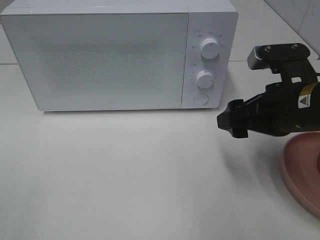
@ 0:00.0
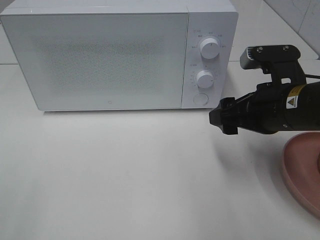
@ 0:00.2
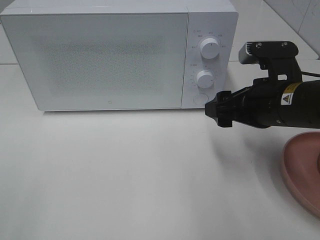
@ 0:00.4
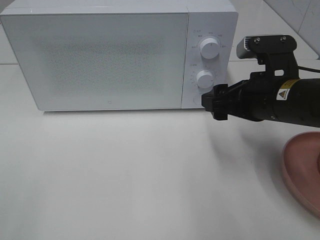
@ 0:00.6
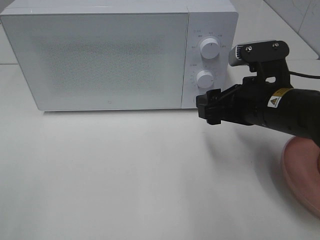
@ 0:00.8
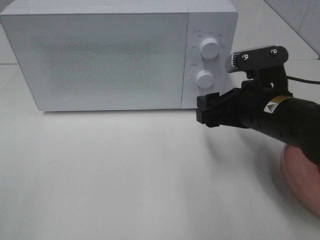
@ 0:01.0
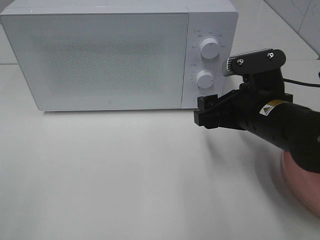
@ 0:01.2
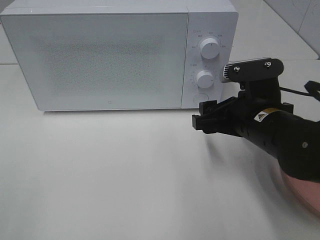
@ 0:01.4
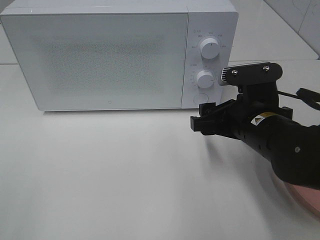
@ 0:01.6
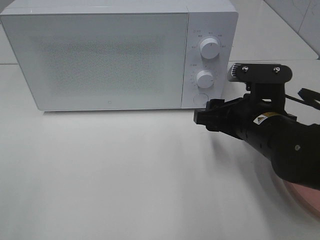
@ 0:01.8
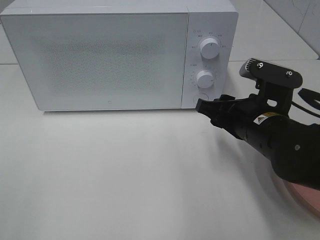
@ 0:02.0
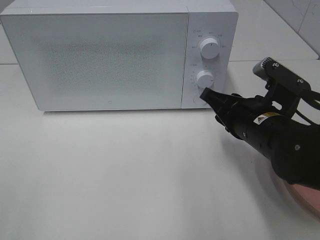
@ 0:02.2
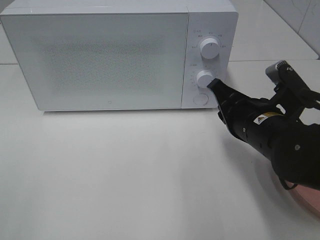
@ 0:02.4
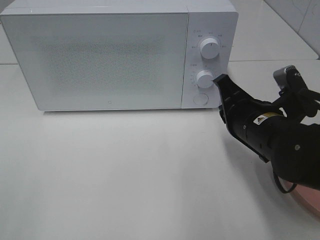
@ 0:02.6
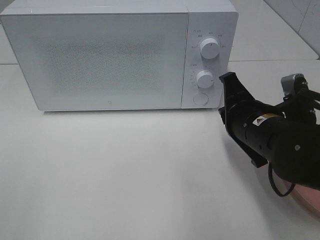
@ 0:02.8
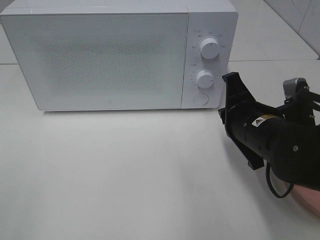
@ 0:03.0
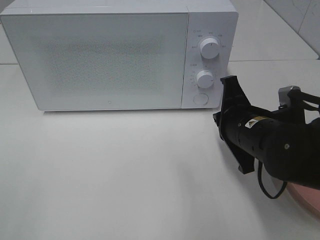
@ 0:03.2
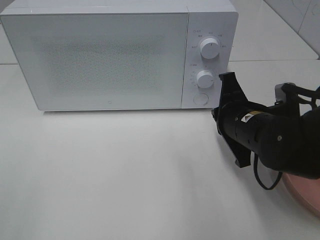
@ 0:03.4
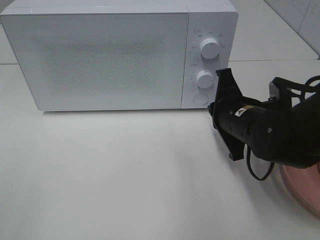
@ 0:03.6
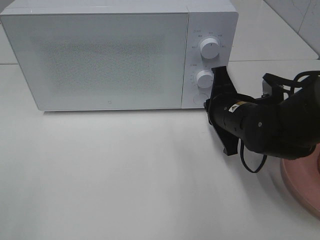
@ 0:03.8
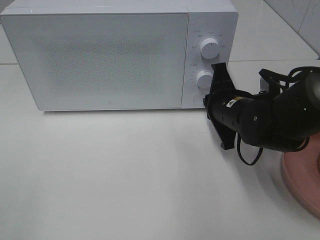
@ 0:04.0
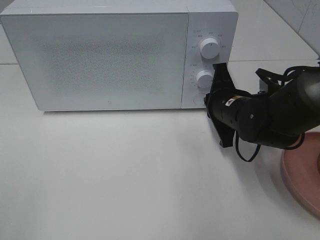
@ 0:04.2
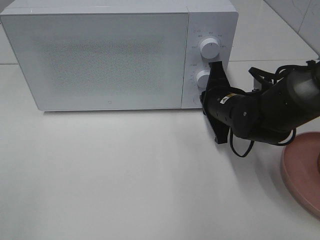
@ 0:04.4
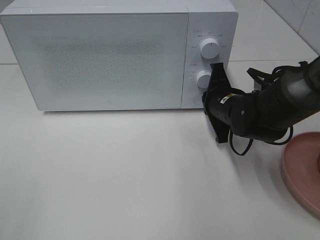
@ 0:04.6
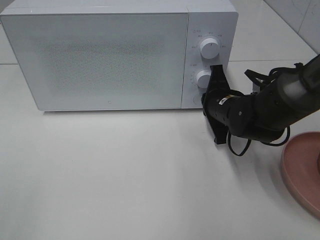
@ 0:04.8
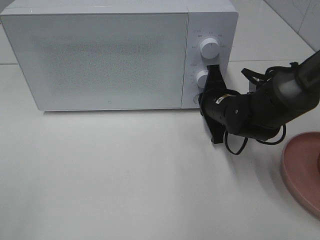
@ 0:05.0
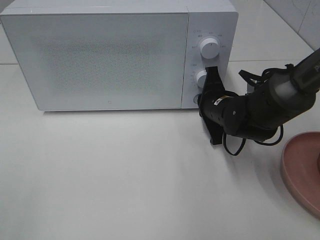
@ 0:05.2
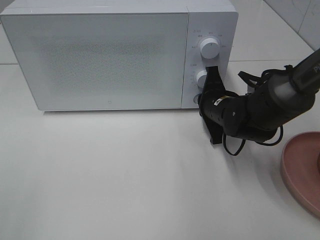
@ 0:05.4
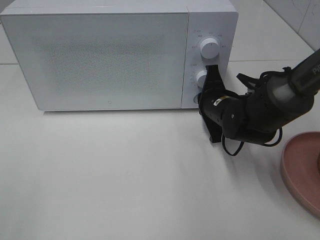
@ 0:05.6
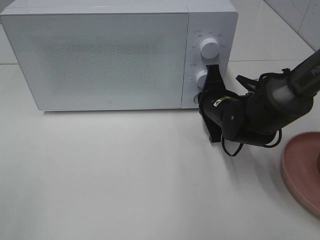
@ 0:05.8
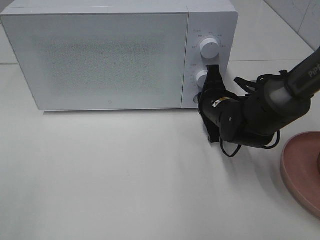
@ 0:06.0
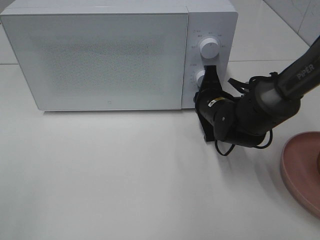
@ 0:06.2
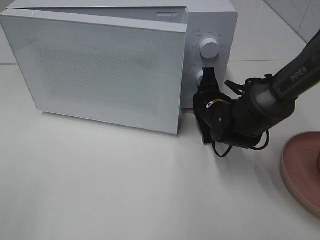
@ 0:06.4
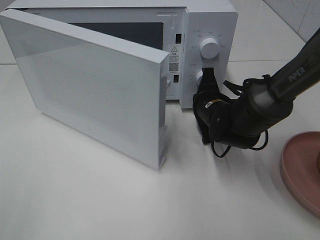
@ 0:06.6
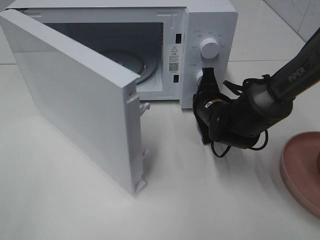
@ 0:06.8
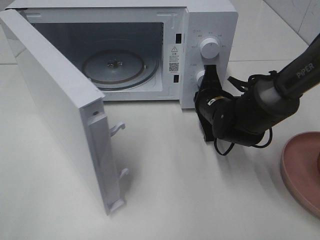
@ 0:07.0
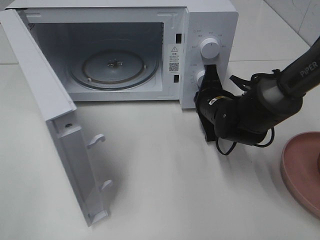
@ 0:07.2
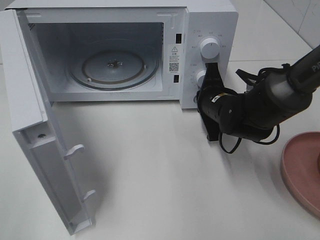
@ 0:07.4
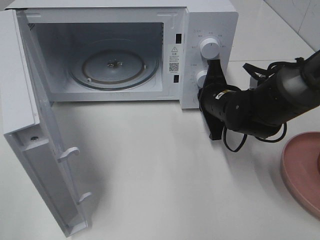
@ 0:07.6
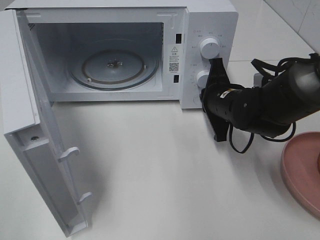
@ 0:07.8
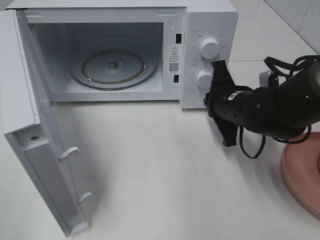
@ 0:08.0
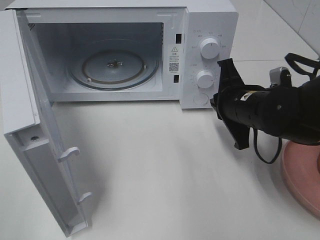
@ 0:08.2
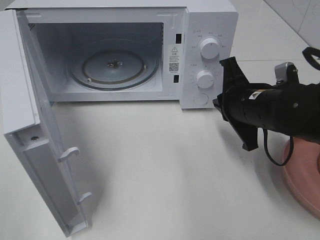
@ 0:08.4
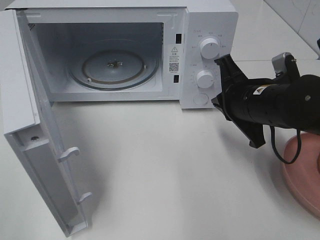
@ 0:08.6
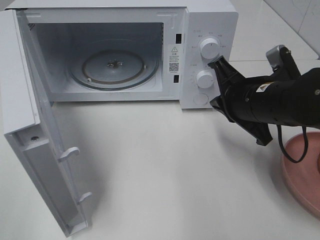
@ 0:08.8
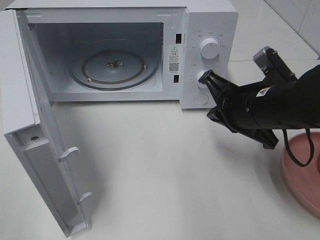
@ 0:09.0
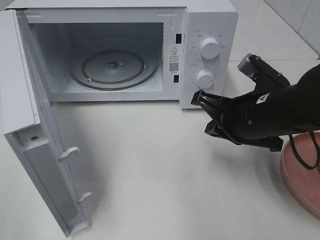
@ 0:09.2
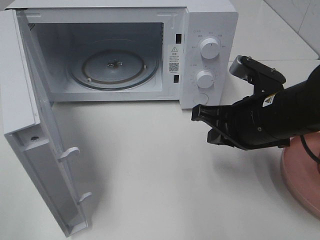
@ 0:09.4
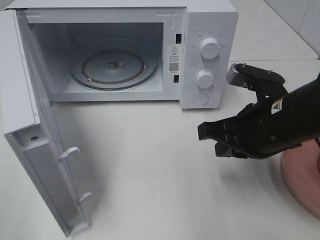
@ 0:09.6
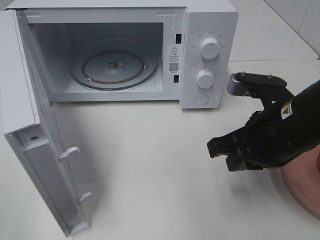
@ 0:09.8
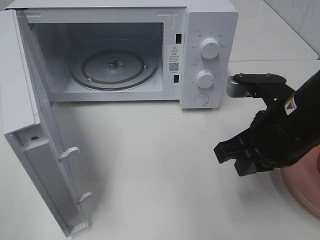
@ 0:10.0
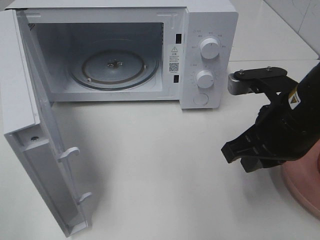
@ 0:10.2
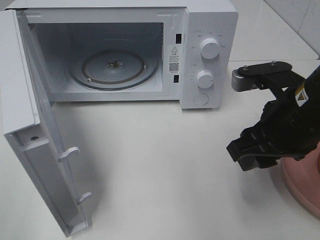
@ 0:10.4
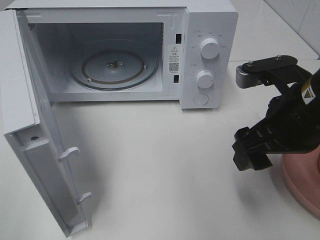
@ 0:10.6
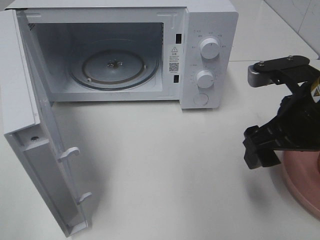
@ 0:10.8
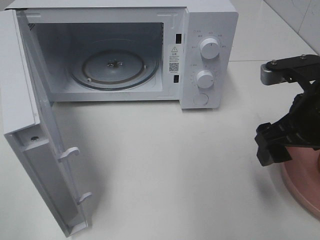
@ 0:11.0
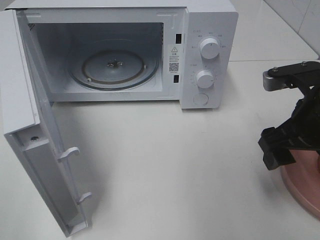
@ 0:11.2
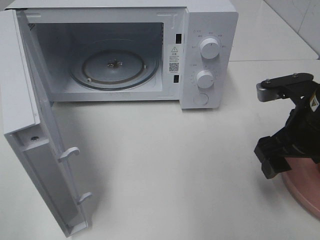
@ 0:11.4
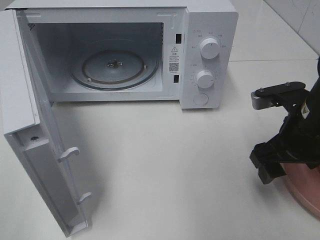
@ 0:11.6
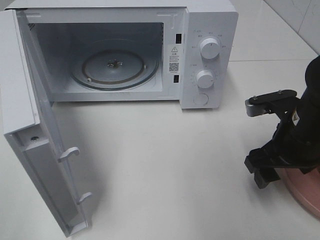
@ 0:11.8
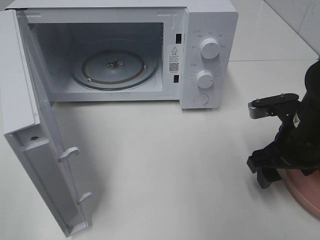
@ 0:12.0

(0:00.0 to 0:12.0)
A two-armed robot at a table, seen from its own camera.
Task of the whole recording: Heat the burger.
Step, 0:00.0 - 0:07.8: Right hand: press the switch.
0:00.0 - 0:01.6: The right gripper shifts by roughly 5 cm.
0:01.6 - 0:03.0: The right gripper closes its fingers.
0:03.0 - 0:04.4: The right gripper heads forward, covering approximately 10 cm.
0:04.4 - 0:06.0: The grippers make only small movements.
0:07.6 - 0:09.0: The right gripper heads backward and upward, covering approximately 10 cm.
0:09.0 - 0:10.4: The right gripper ends up some 5 cm from where it was, and opens up.
0:10.4 - 0:12.0: The right gripper moves downward, approximately 5 cm.

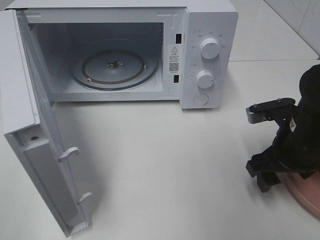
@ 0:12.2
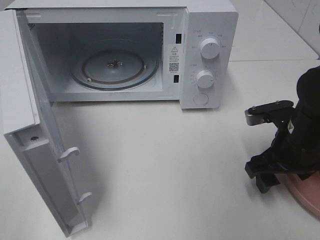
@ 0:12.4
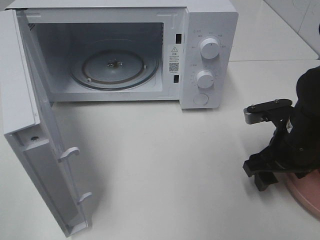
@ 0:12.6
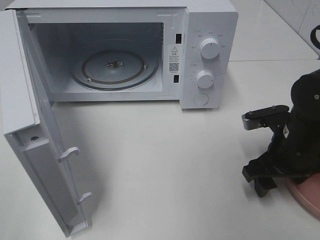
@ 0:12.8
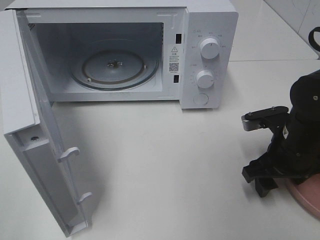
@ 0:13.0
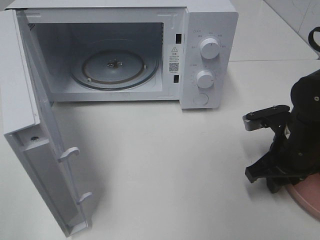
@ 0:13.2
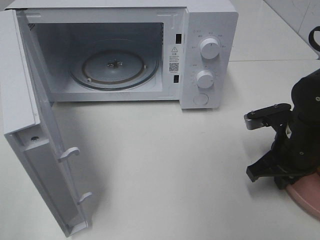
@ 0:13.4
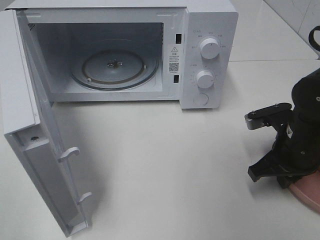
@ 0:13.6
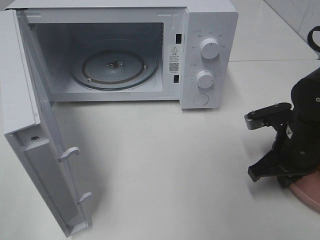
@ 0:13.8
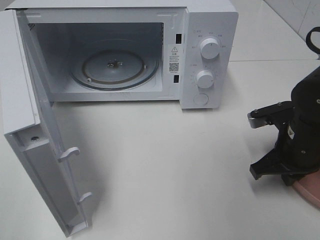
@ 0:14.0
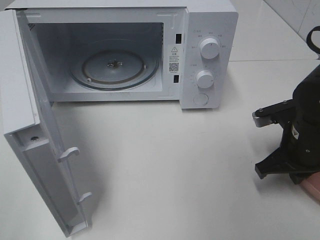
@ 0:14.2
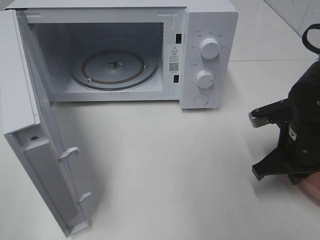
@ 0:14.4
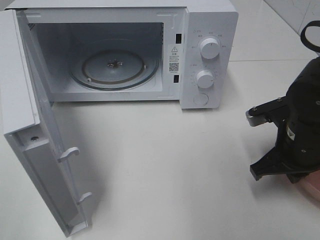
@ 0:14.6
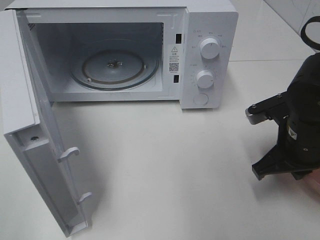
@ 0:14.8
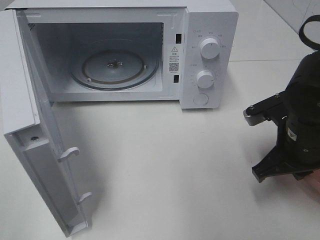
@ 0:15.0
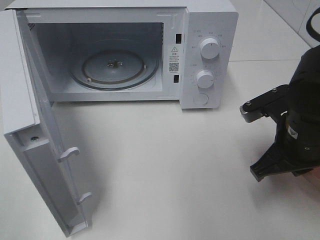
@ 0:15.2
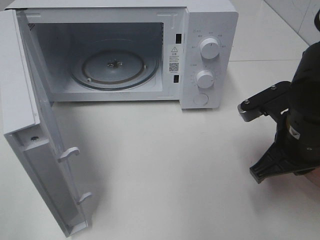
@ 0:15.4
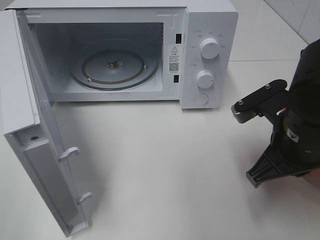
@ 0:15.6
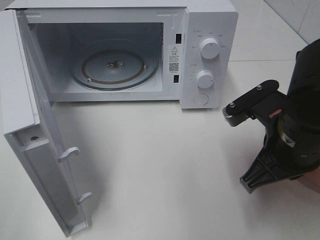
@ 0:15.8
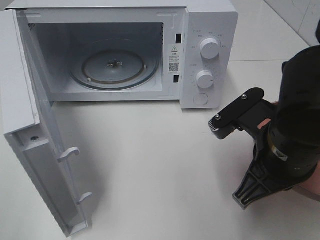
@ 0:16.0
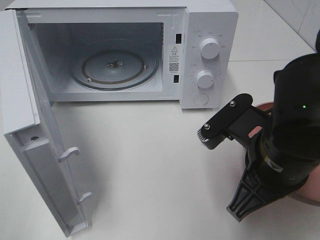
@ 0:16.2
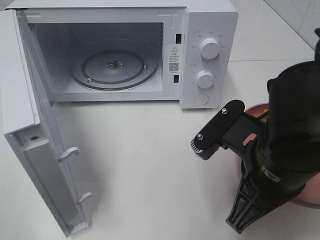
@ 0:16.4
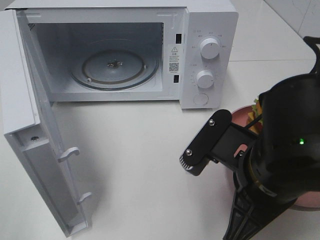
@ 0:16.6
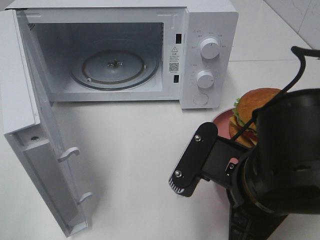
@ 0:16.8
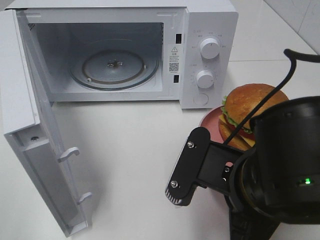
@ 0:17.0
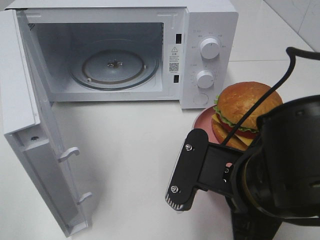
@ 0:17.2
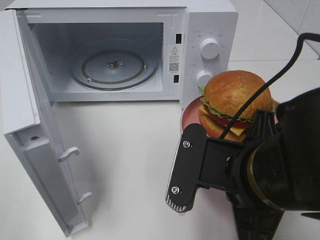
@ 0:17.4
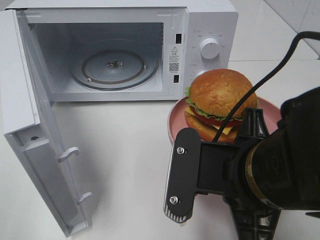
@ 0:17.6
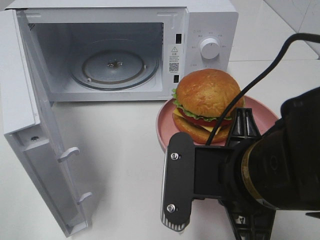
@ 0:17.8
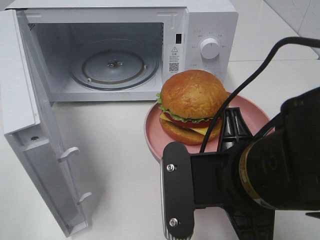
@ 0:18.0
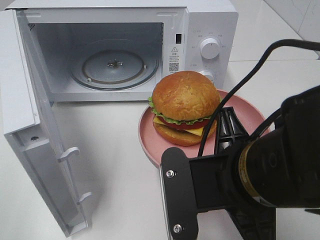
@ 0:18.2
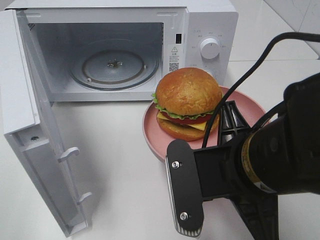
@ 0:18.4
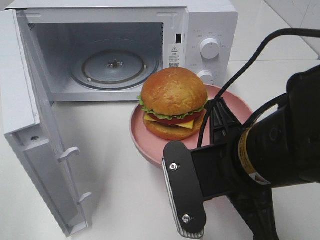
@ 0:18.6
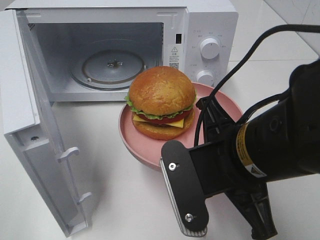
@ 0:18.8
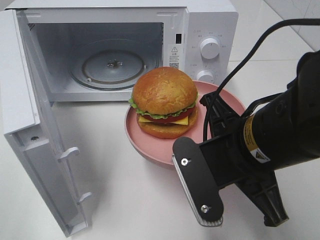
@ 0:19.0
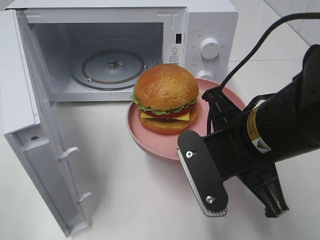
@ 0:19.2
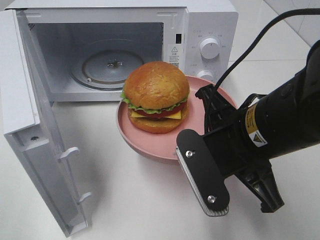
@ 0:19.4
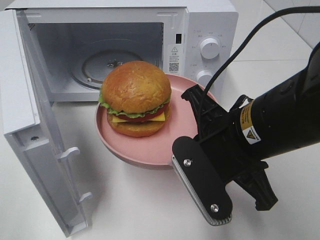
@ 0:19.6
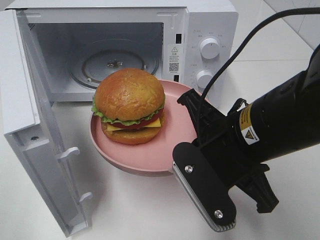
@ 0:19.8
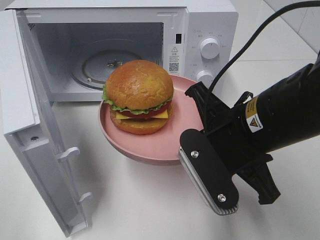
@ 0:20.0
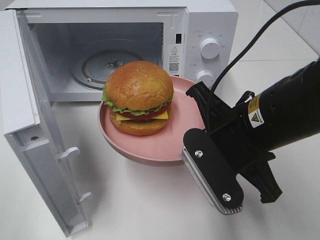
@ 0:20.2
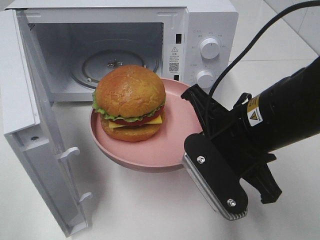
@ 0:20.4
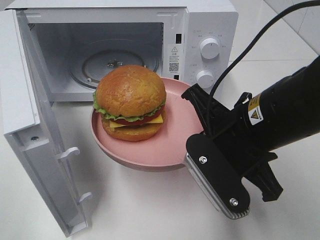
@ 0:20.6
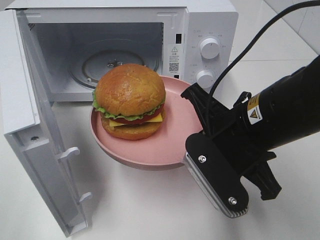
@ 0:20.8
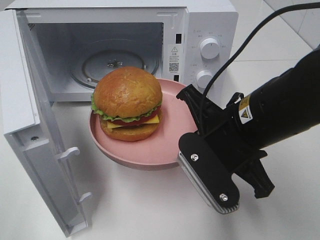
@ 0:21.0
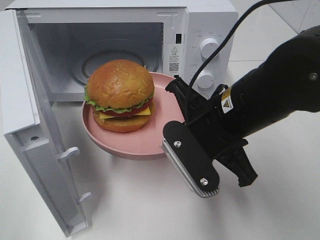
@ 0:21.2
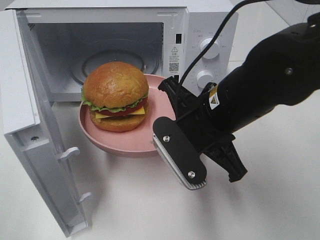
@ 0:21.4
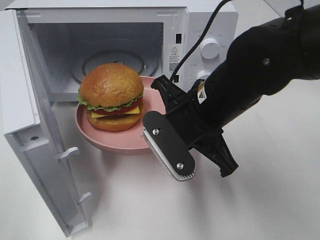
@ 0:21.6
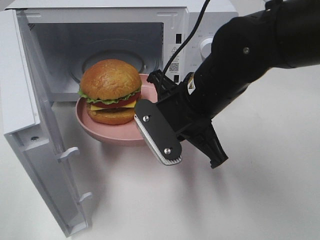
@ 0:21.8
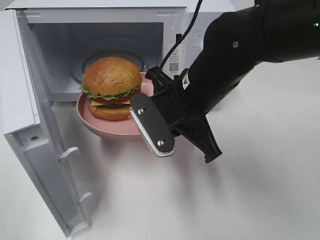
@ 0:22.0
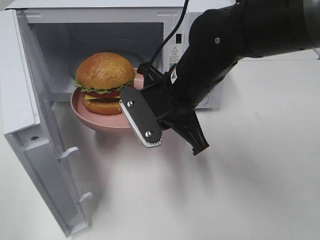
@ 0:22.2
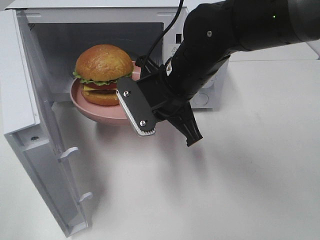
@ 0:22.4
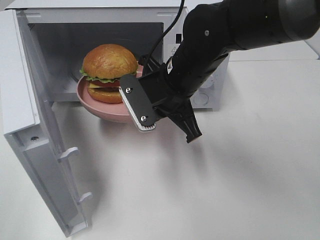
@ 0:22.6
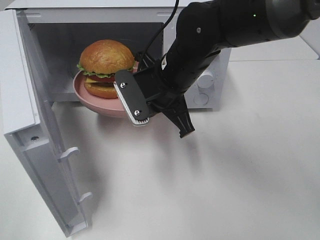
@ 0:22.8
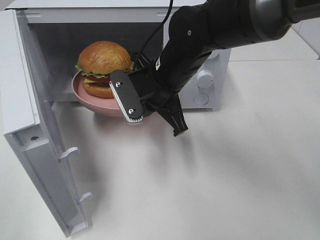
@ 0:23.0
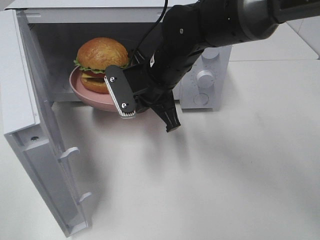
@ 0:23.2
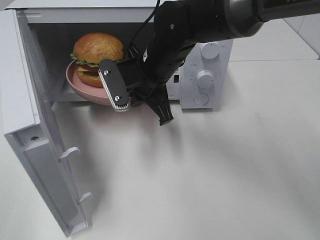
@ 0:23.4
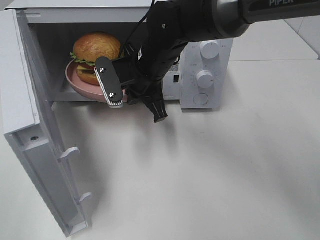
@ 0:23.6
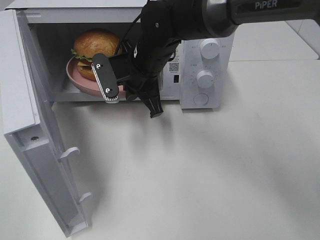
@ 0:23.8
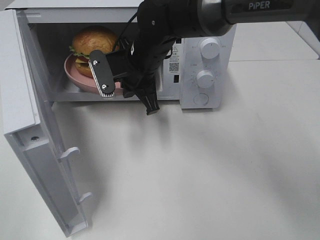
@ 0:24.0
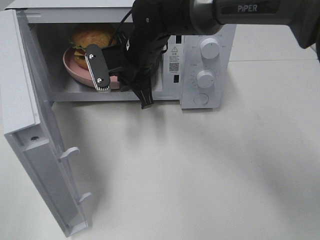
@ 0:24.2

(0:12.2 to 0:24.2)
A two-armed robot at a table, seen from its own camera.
Task of the whole recording: Heat the burger.
0:12.2 - 0:13.8: The right gripper closes up.
0:13.8 - 0:15.2: The right gripper shifts about 5 cm upward.
0:15.2 - 0:16.6: The right gripper goes about 10 cm to the left and backward.
0:18.2 - 0:19.8: The right gripper shifts approximately 5 cm forward.
0:21.2 - 0:22.6: The right gripper travels forward and to the left by roughly 10 cm.
0:22.6 - 0:24.2: The right gripper heads forward and to the left, covering some 10 cm.
